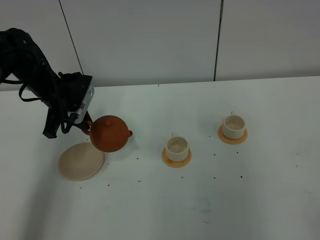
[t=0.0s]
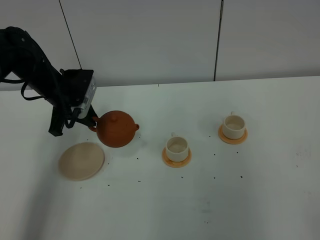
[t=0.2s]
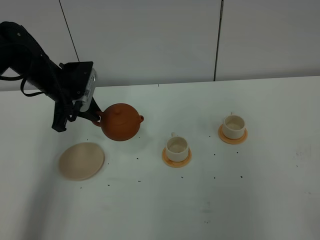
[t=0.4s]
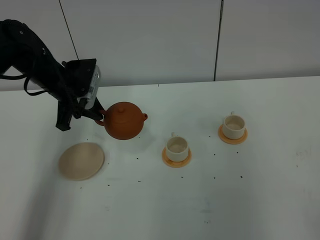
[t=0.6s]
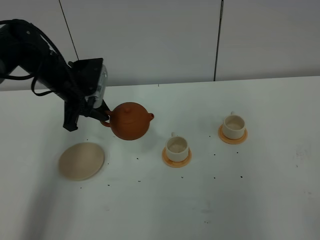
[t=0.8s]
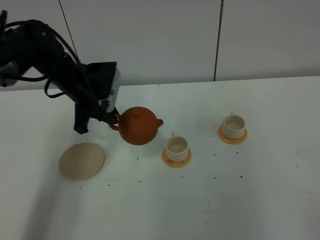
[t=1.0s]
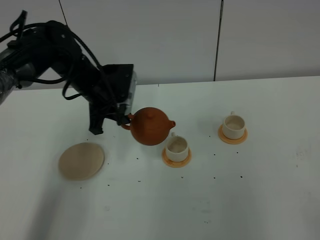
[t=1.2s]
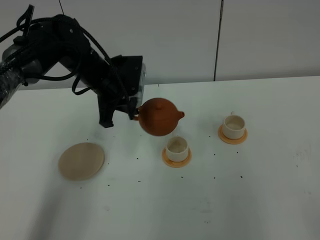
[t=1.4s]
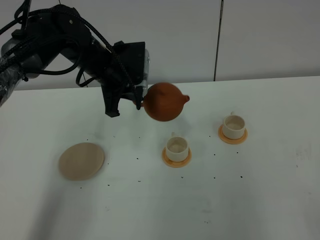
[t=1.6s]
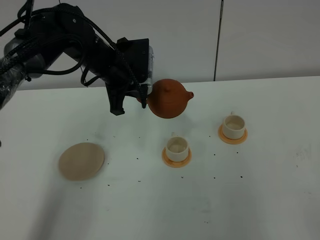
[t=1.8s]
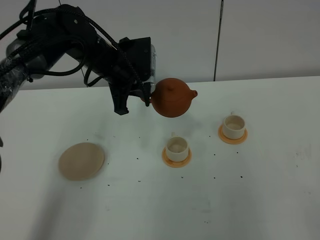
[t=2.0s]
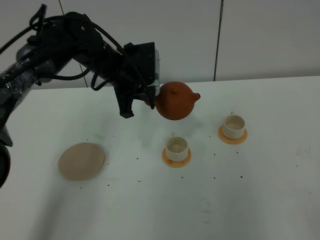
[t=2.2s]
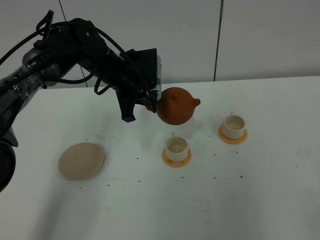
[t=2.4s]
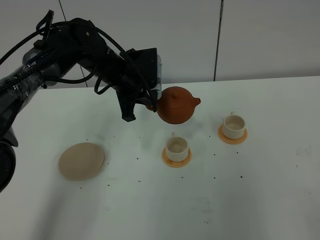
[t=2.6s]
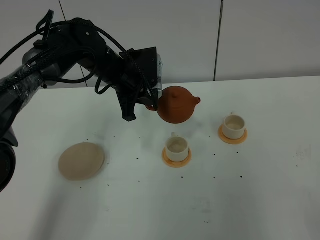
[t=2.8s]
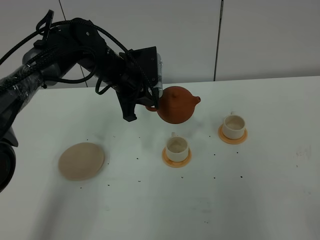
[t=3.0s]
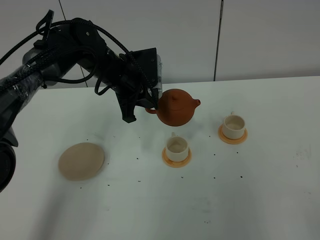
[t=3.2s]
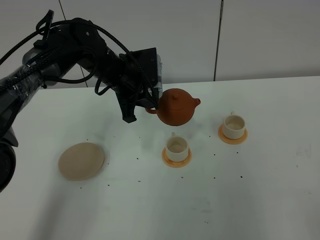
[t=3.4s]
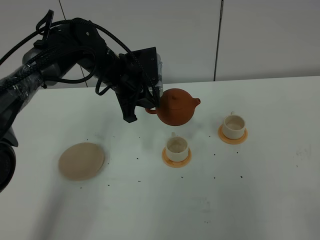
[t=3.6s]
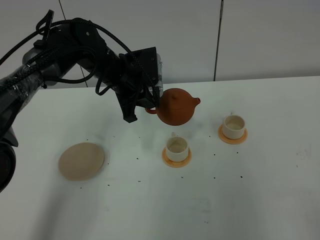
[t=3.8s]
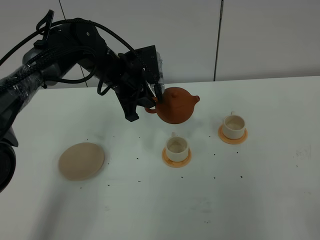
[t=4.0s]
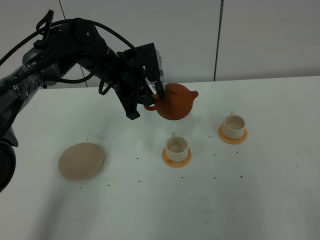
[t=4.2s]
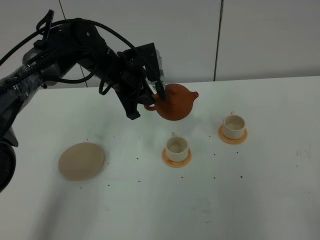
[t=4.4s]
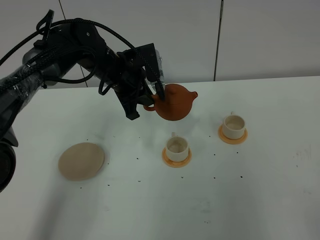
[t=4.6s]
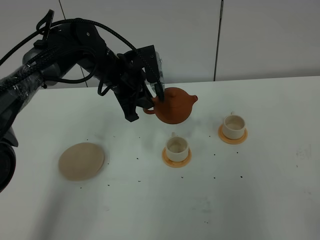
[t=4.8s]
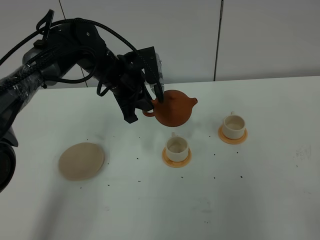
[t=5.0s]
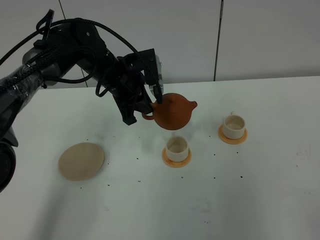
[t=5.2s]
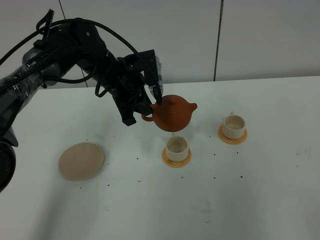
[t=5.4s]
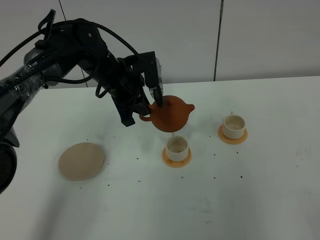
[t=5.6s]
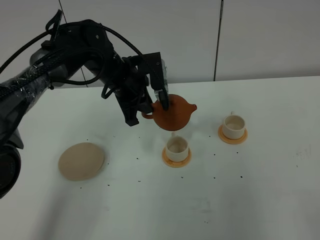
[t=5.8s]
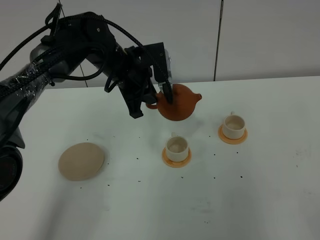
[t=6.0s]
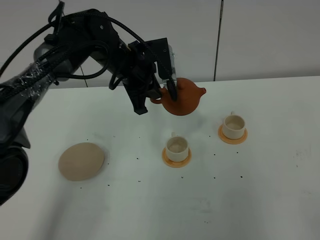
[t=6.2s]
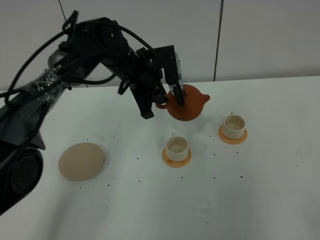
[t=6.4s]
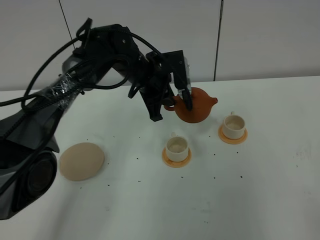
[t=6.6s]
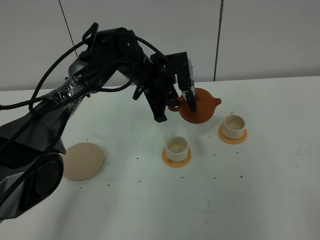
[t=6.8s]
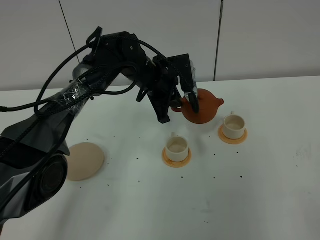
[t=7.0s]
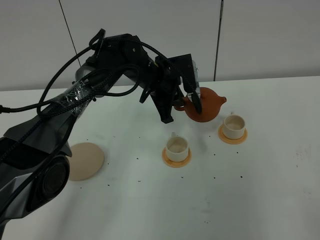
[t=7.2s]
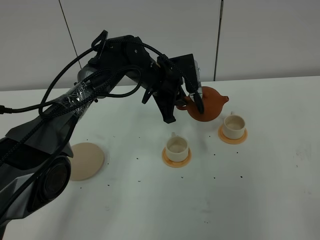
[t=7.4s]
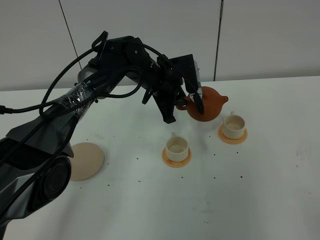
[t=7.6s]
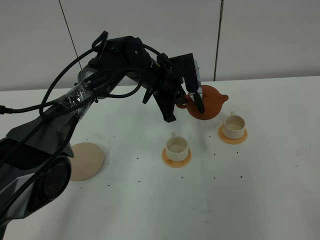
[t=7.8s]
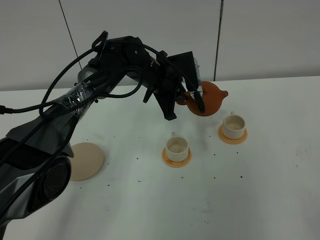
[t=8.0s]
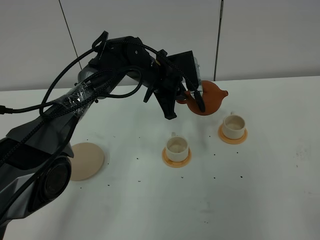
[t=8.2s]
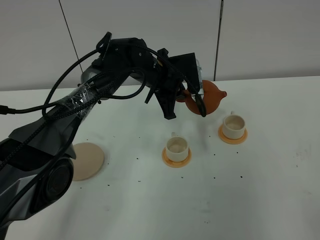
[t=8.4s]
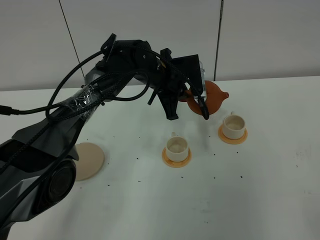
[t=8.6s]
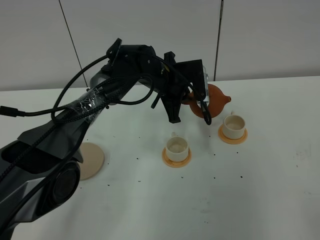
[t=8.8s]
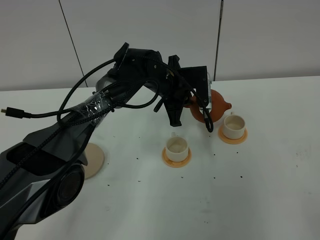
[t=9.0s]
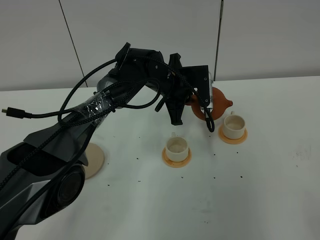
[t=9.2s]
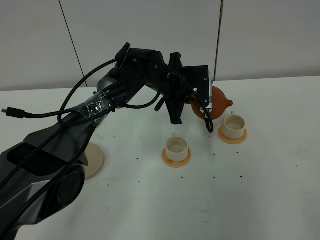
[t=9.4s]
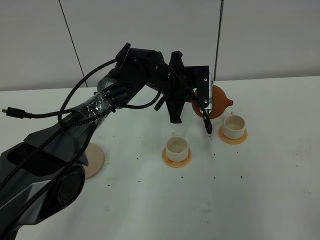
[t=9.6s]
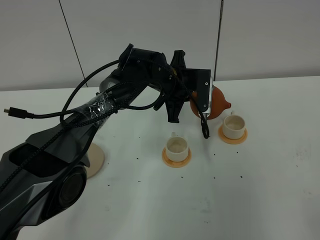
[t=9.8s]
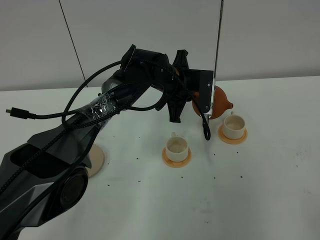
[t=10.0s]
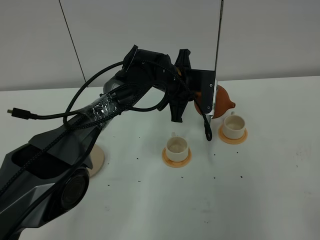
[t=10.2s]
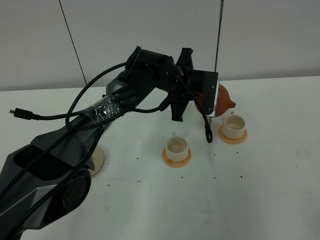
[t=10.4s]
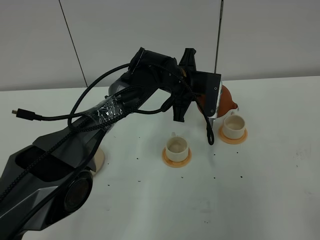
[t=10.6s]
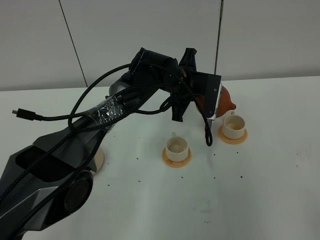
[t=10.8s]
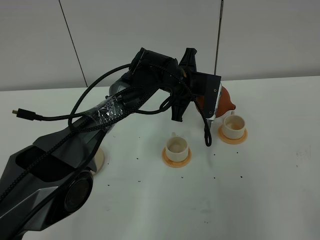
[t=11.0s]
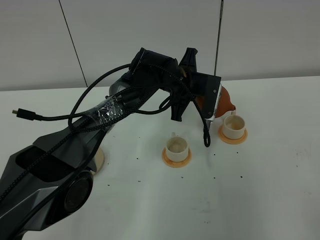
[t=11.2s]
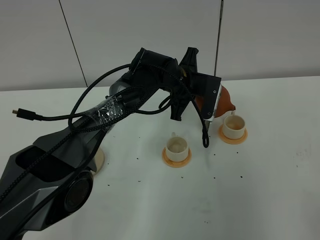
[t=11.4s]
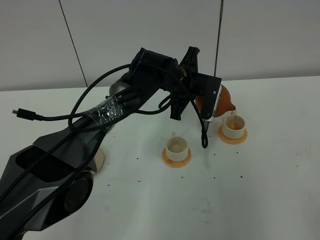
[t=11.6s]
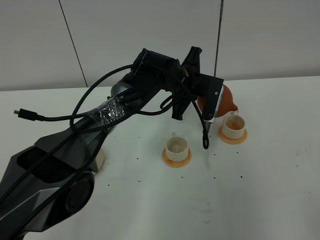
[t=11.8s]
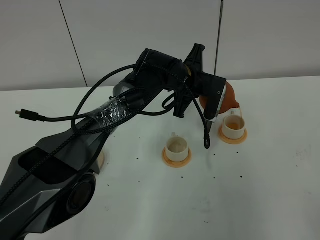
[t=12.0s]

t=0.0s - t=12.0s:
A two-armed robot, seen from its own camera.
Task of the whole recording: grasp the brown teapot and pour the tea into the two white teacups one by one, put the brown teapot back in its original place.
t=0.0s - t=1.6s: The left gripper is displaced to the right and upward by approximately 15 cm.
t=1.6s - t=6.0s: The grippers move only a little.
t=6.0s - t=7.6s: The left gripper shifts about 10 cm downward and to the right.
t=7.6s - t=9.0s: There are only small adjustments of the grippers.
t=9.0s - t=10.4s: The grippers stay close to where they were, moving slightly.
t=10.4s - t=12.0s: The grippers move only a little.

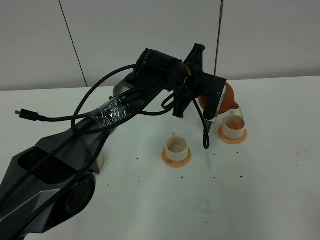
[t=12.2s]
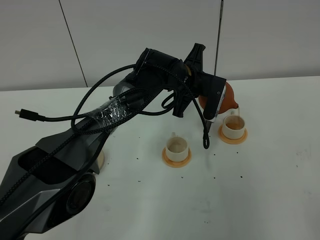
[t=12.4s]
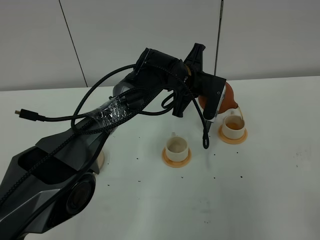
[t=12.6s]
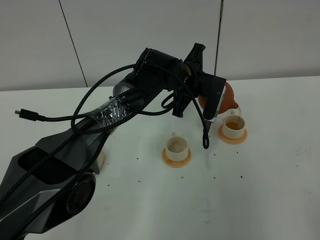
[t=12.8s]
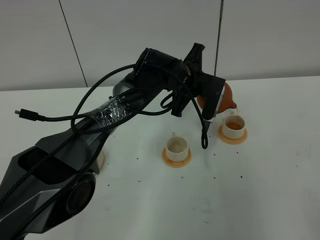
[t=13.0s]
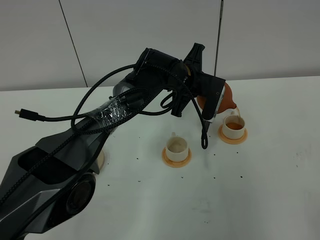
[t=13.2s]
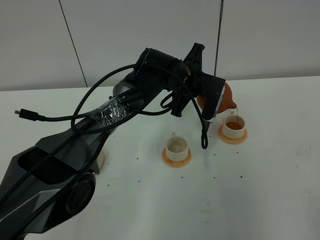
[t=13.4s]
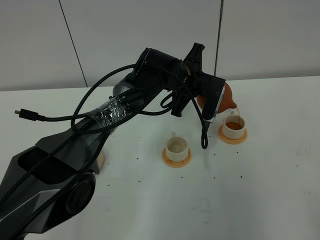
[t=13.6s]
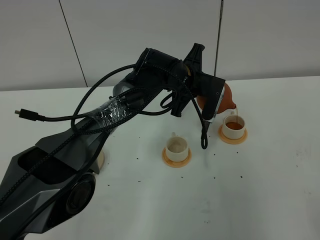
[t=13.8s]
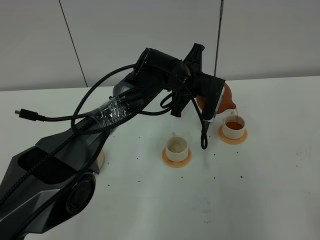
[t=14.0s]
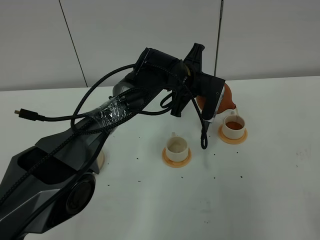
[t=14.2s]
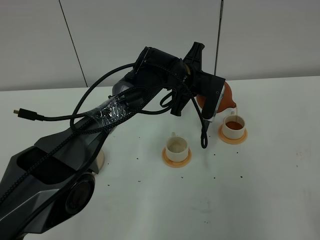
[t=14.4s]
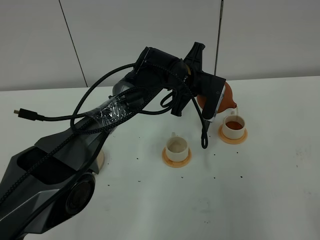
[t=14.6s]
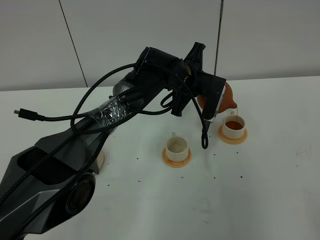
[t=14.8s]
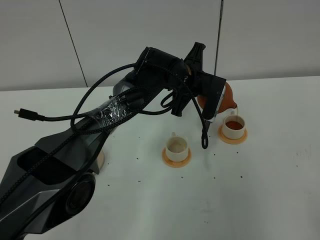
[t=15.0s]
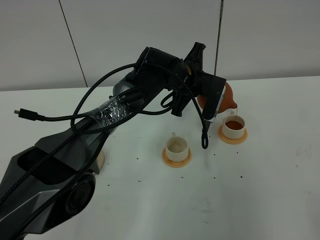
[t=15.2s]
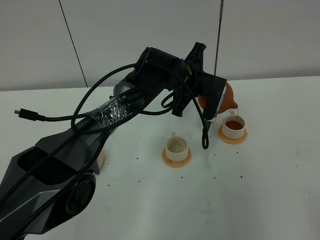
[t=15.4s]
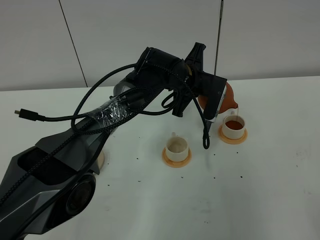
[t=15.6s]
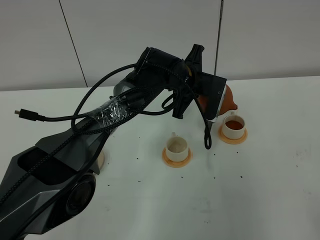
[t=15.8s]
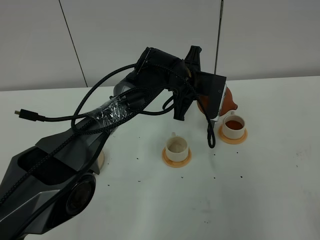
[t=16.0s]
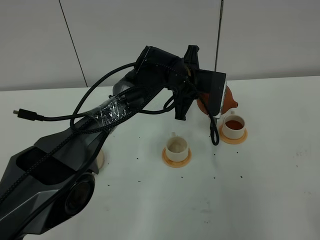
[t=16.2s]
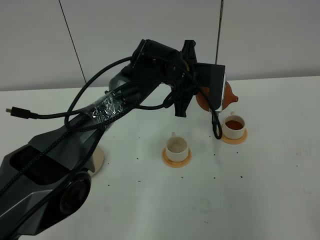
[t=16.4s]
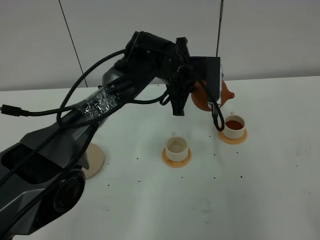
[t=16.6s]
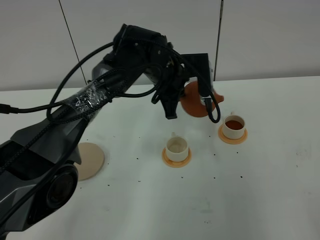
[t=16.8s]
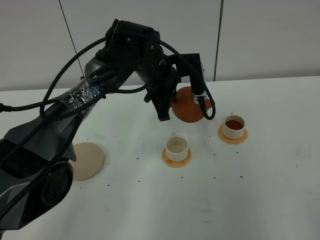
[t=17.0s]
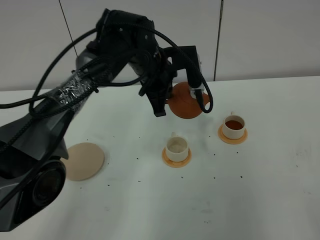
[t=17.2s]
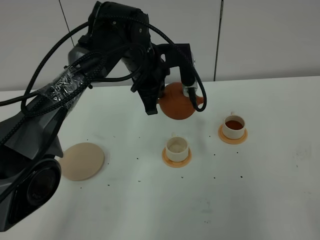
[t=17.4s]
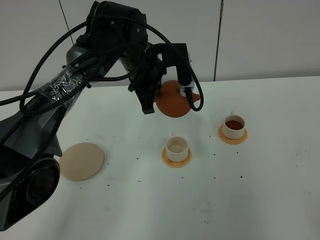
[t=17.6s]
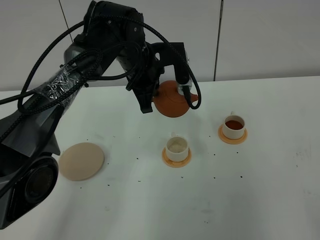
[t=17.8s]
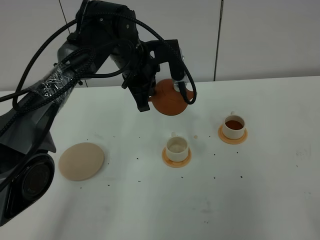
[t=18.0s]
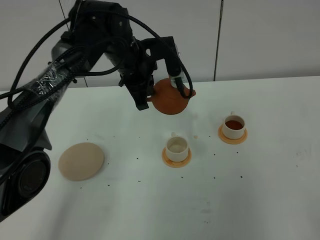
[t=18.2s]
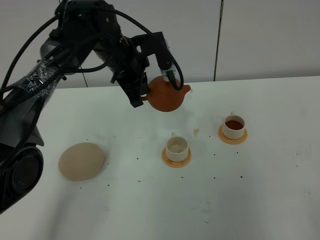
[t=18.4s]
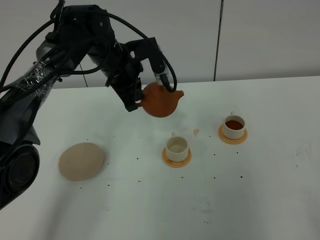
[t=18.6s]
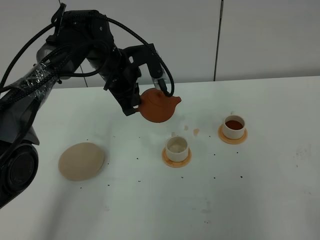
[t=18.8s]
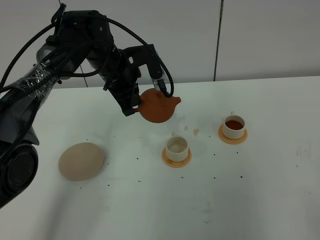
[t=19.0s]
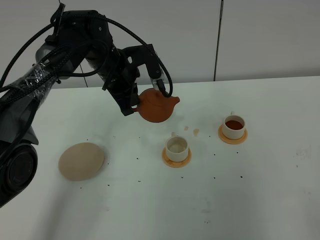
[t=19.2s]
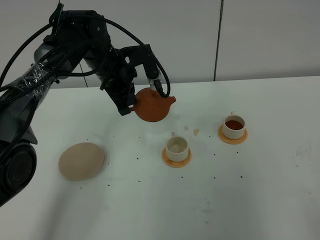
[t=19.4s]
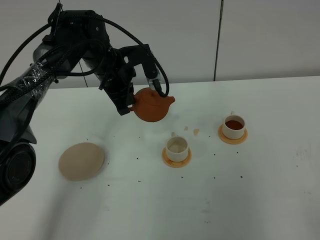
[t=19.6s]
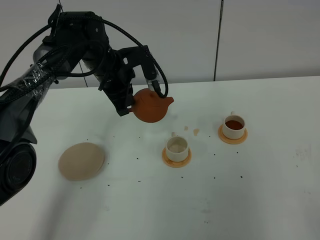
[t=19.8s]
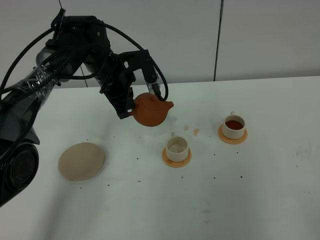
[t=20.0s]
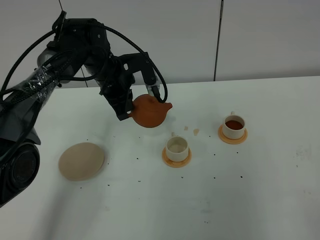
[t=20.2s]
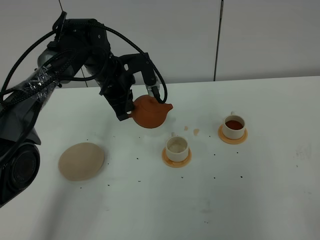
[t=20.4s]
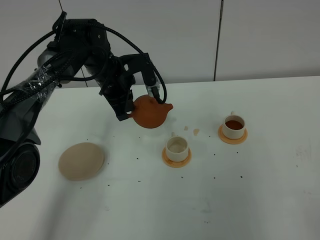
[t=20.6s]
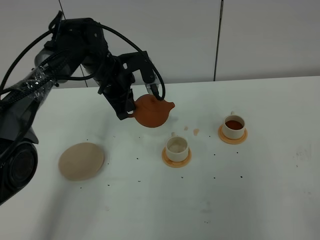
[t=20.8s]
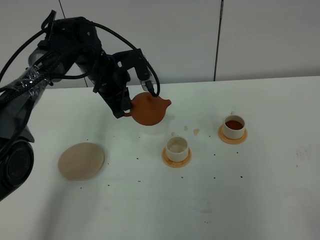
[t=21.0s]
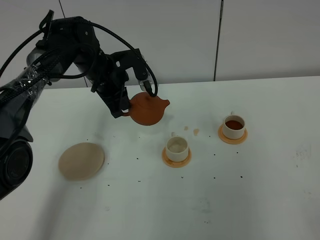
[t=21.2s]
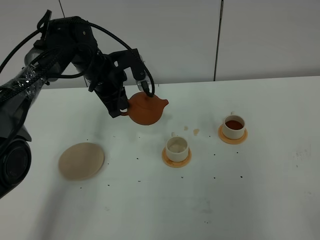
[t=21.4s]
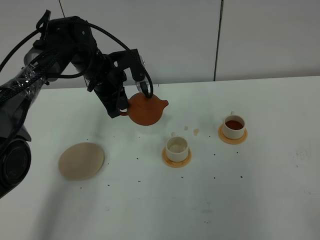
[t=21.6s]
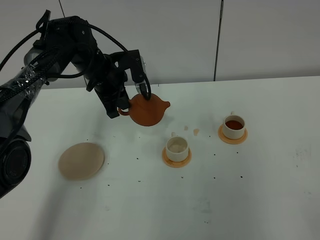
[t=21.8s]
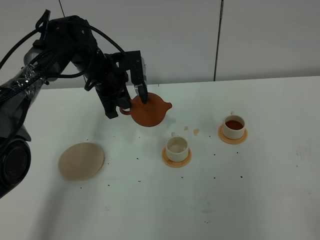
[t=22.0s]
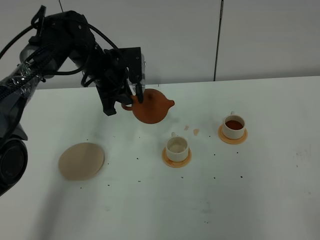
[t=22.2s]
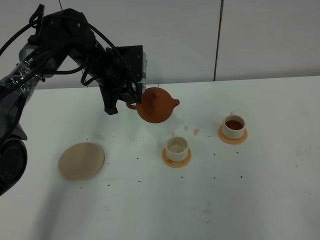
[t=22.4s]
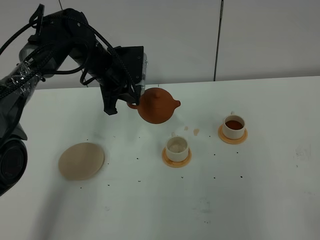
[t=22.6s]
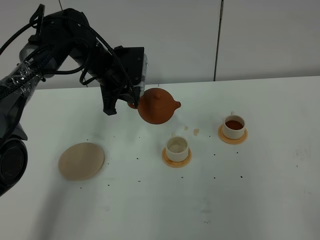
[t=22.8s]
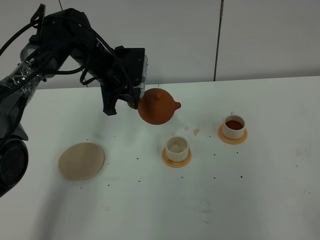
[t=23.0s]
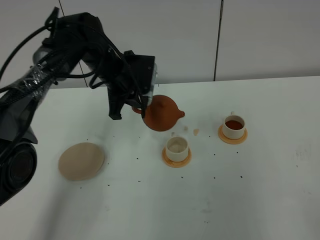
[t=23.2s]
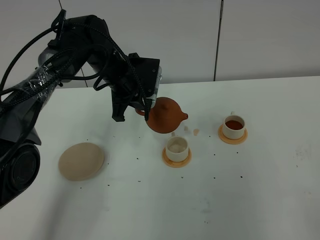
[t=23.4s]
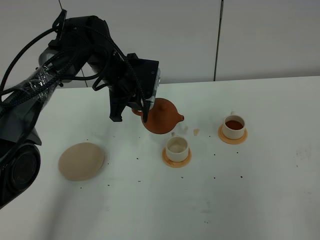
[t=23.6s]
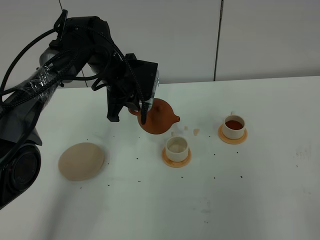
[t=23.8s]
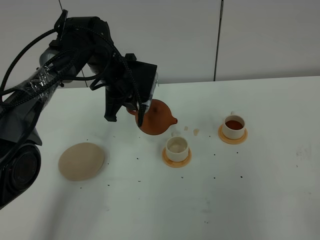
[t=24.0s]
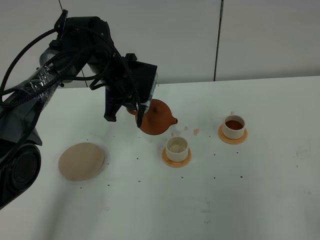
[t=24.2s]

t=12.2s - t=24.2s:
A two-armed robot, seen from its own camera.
Task of the whole recording: grasp the brown teapot and pour the tea into the two white teacups one by one, put the brown teapot back in its original place.
t=12.2s - t=15.2s: Both grippers stay put.
t=16.6s - t=18.2s: The left gripper heads to the left, covering approximately 10 cm.
t=18.2s - t=19.8s: The left gripper moves some 5 cm.
t=19.8s - t=22.6s: The grippers move only a little.
t=22.6s - t=24.2s: The grippers move only a little.
